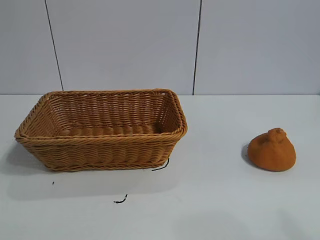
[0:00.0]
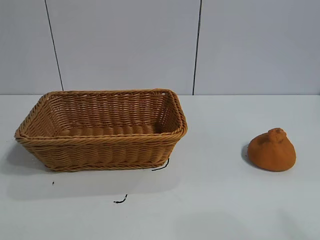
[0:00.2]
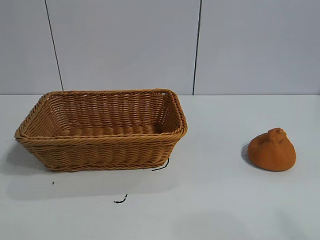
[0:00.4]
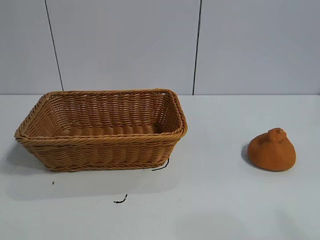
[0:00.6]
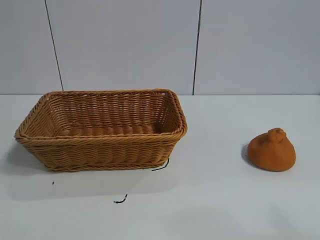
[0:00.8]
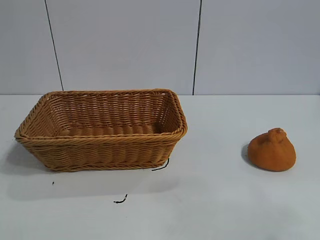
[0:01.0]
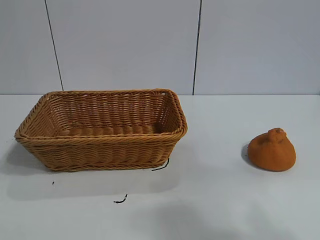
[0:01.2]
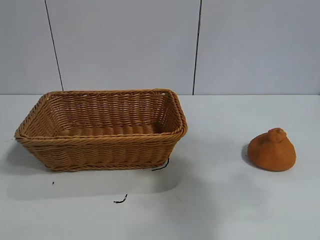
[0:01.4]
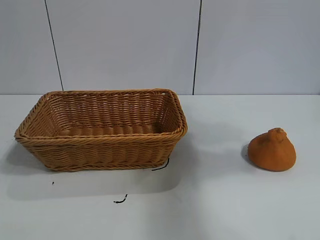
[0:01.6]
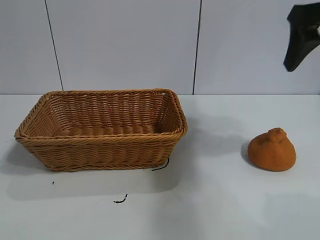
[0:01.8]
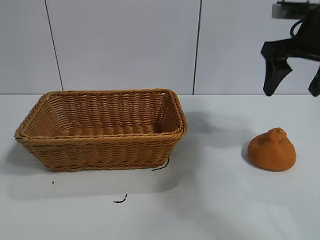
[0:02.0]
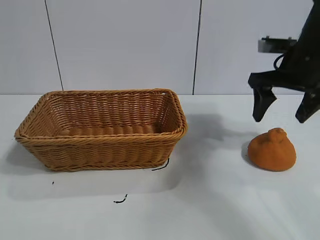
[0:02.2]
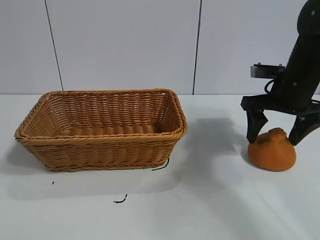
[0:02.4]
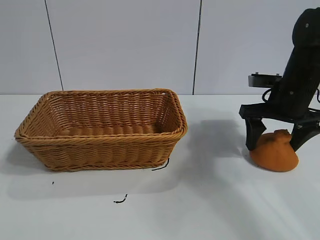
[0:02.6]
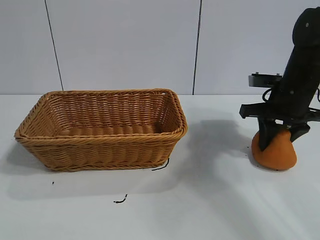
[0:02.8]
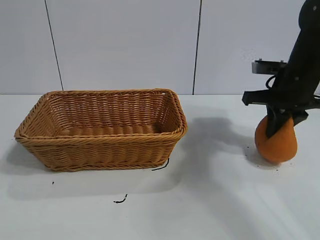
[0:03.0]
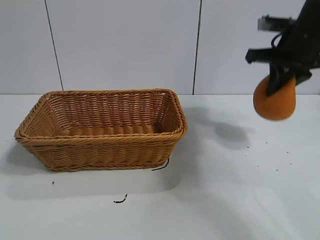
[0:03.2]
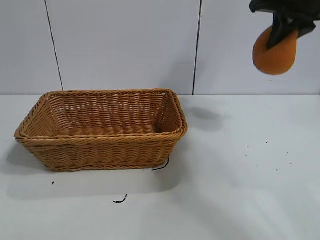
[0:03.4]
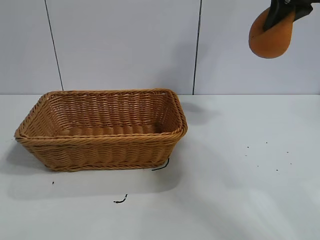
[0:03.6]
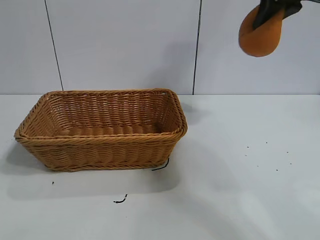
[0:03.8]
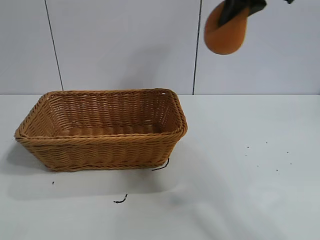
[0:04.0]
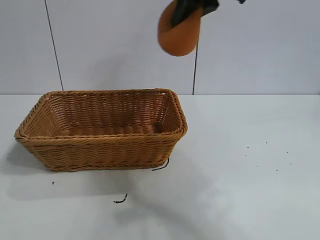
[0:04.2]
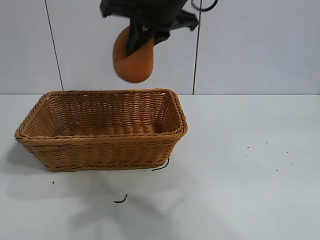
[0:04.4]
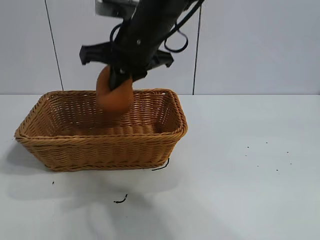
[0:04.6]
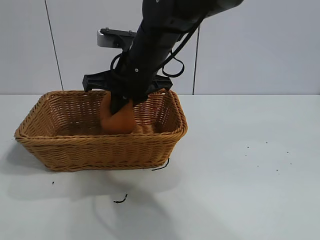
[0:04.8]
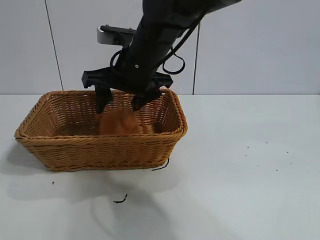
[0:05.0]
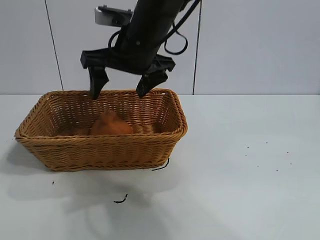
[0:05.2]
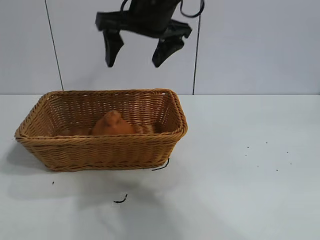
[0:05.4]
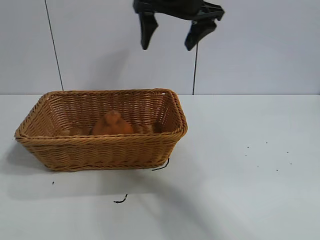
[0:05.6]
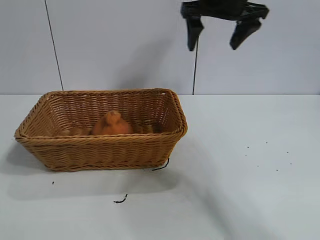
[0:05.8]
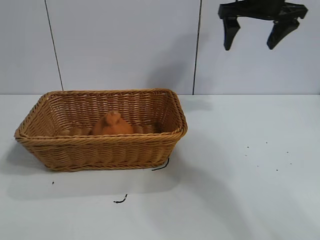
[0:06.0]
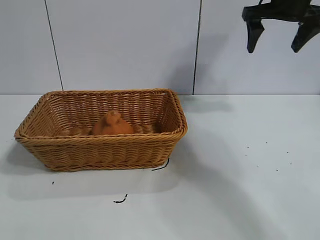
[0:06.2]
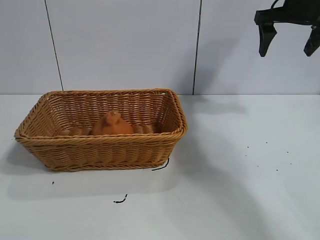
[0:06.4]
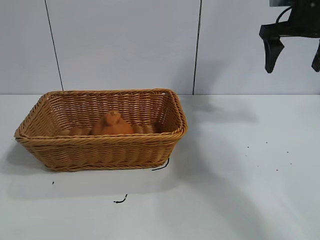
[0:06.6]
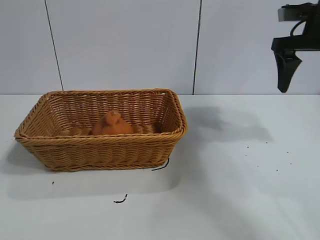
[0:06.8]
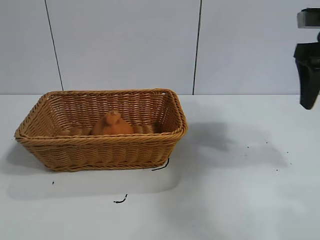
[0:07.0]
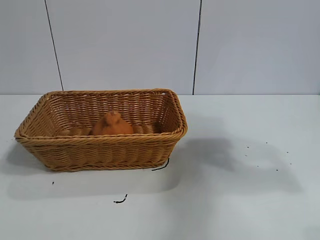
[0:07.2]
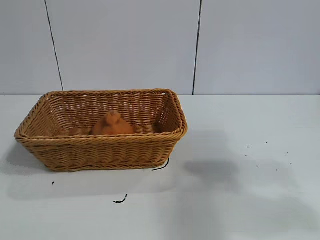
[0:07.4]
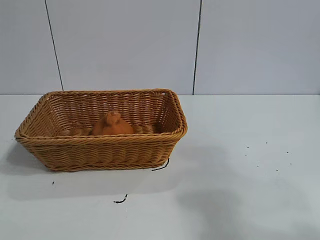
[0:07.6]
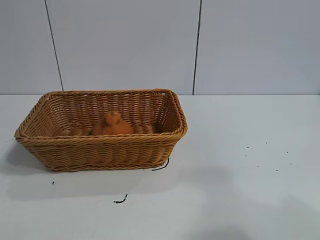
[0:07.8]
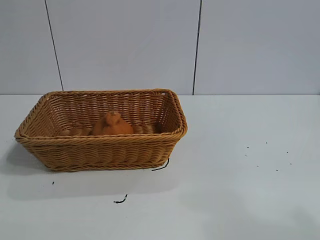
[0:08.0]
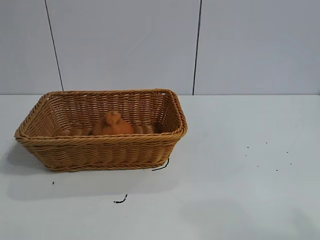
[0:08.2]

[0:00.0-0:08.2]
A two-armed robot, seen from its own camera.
Task of the whole recording: pick up the orange and put it into the basket.
Step, 0:00.8 to 0:03.0: Grasp the orange with right gripper.
Step, 0:03.2 to 0:05.0: Place the orange in the basket with right gripper.

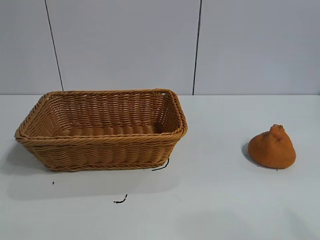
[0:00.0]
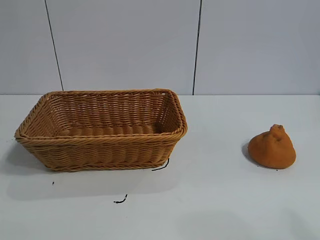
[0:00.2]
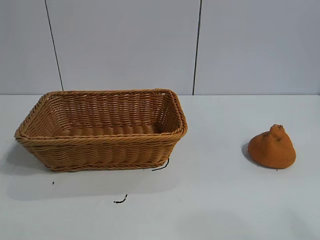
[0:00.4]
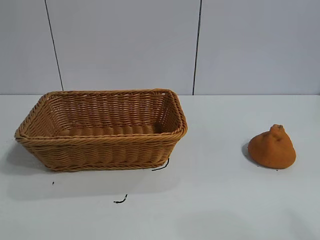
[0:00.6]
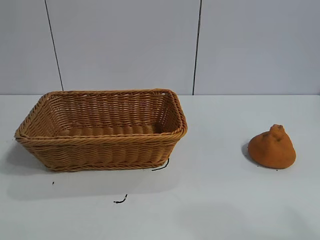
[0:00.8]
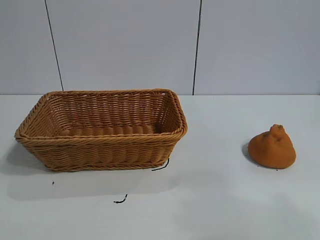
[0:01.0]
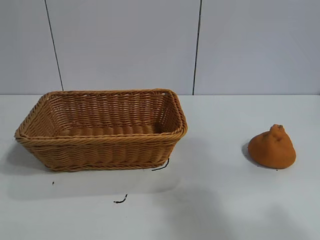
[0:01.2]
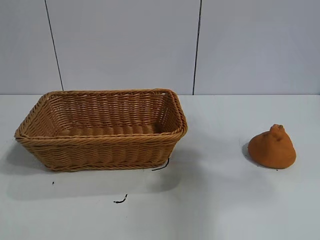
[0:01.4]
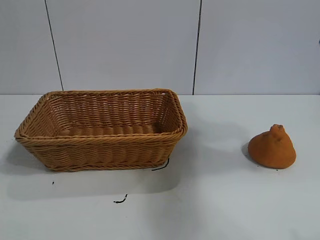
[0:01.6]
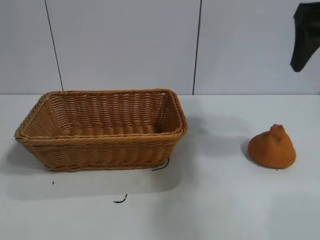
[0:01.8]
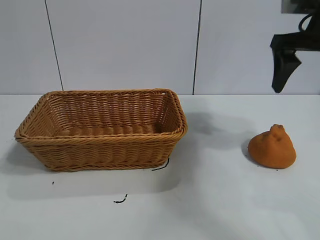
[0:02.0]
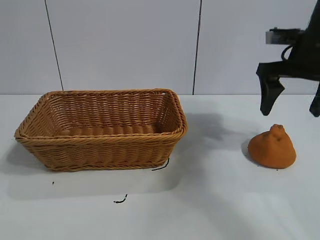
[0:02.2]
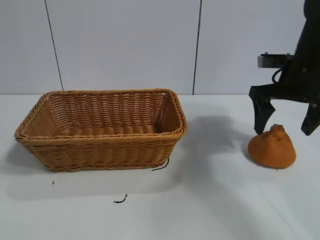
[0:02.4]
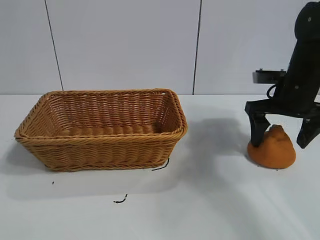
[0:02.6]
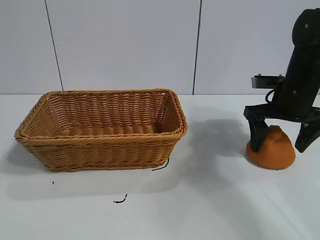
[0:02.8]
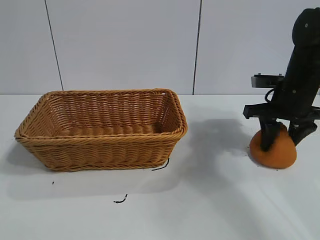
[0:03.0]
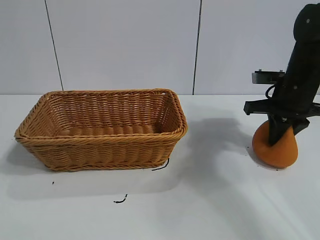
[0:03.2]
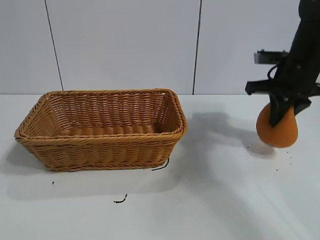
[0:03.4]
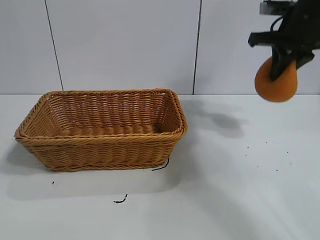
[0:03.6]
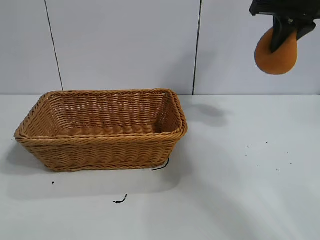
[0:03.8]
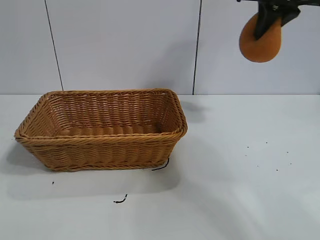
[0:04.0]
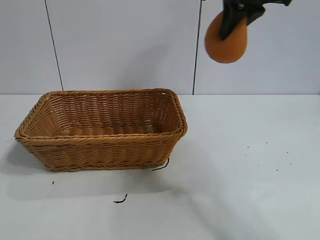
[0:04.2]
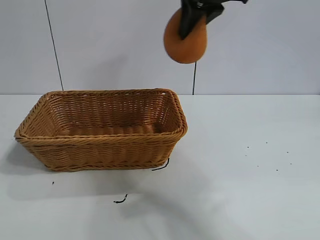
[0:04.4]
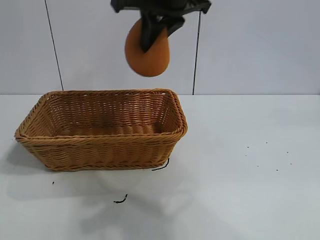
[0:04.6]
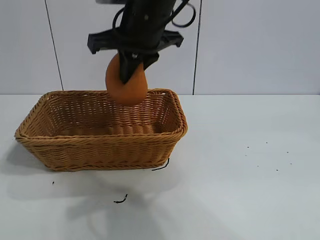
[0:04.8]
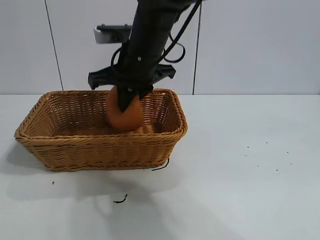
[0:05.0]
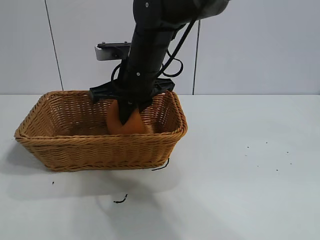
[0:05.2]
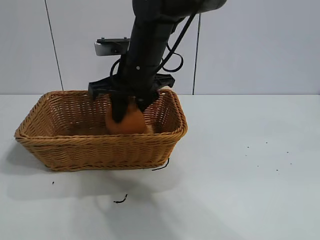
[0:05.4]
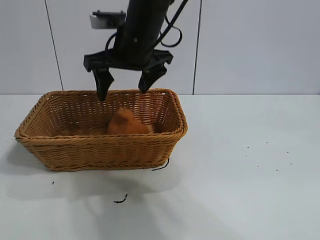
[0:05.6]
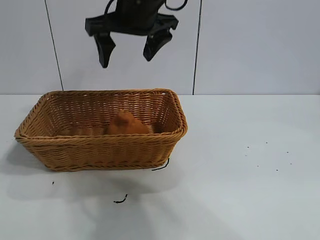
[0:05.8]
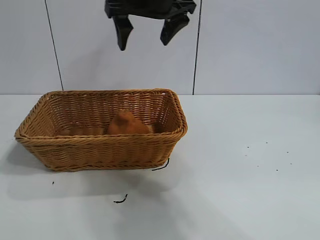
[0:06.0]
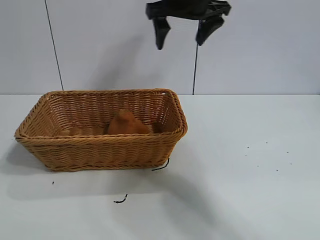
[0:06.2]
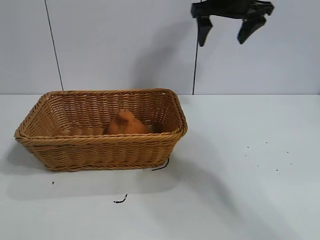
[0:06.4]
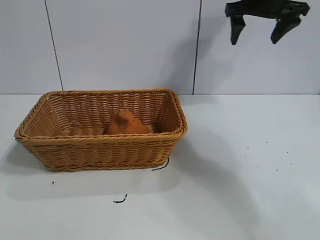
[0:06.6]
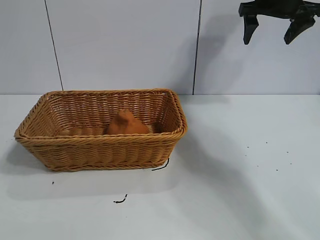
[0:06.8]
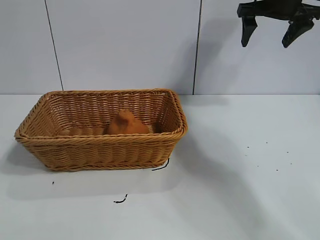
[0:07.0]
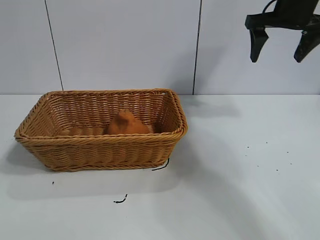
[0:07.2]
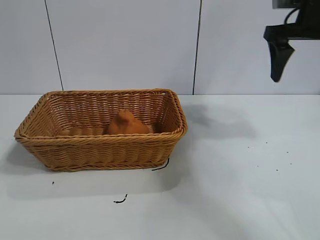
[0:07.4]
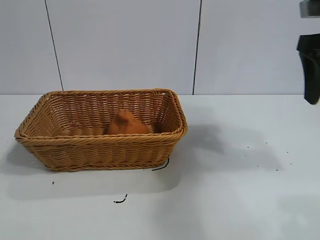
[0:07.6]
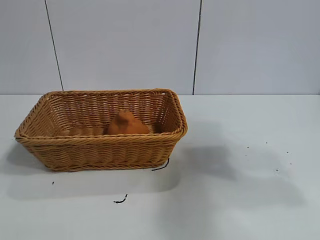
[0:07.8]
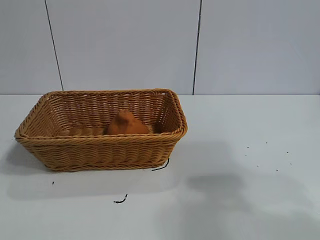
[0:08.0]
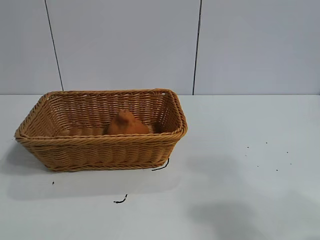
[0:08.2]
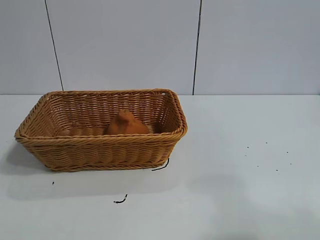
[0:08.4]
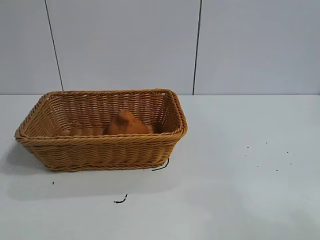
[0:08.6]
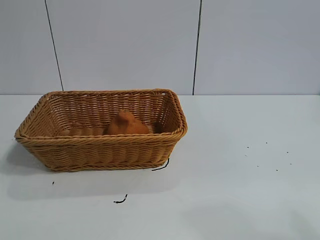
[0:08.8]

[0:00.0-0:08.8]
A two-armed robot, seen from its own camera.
Task of the whole recording: pick up the orange and put it into the basket.
Step, 0:00.8 to 0:03.2: Grasp the orange with right gripper.
Step, 0:03.4 to 0:05.4: Place the orange in the basket with right gripper.
